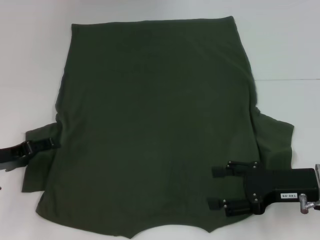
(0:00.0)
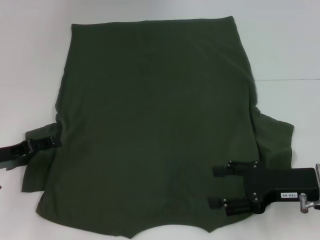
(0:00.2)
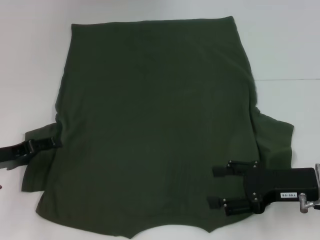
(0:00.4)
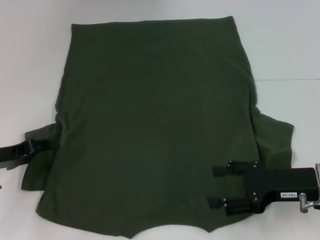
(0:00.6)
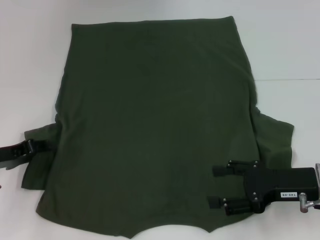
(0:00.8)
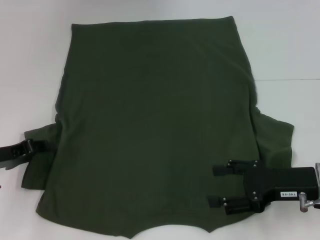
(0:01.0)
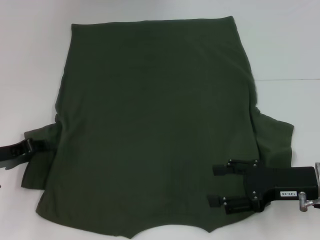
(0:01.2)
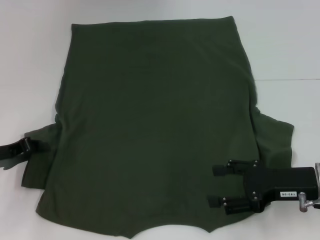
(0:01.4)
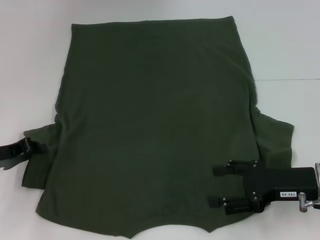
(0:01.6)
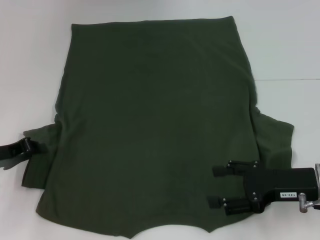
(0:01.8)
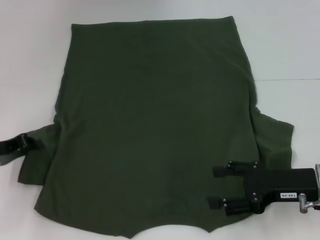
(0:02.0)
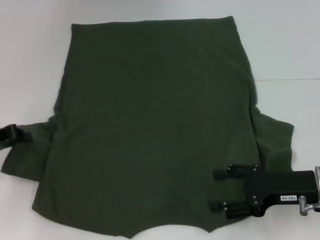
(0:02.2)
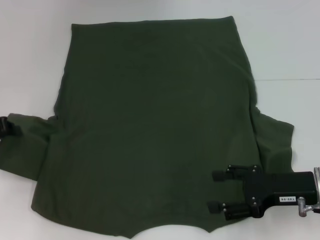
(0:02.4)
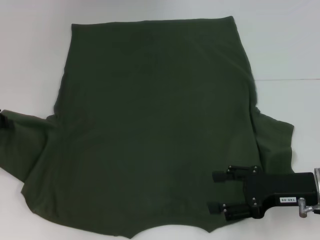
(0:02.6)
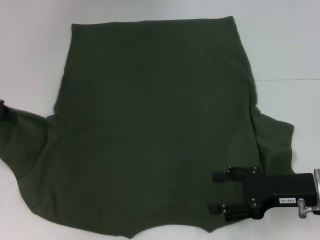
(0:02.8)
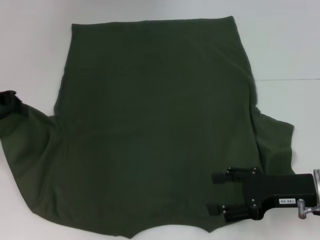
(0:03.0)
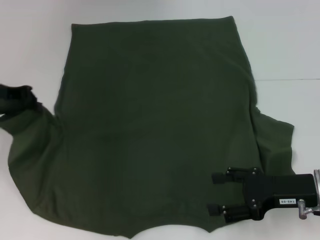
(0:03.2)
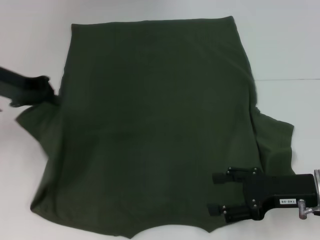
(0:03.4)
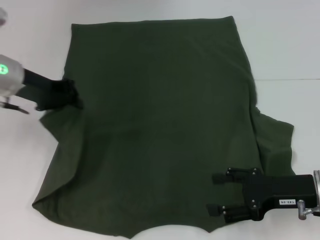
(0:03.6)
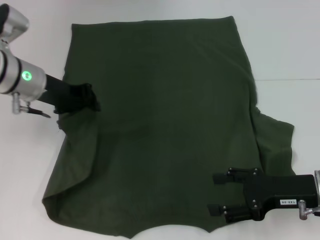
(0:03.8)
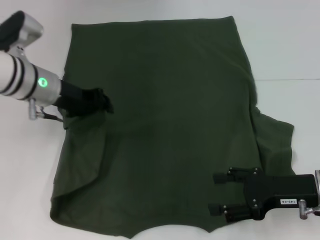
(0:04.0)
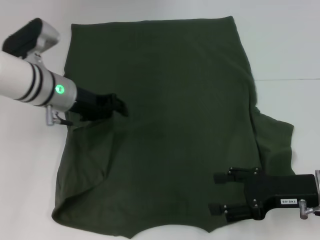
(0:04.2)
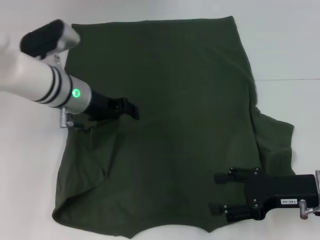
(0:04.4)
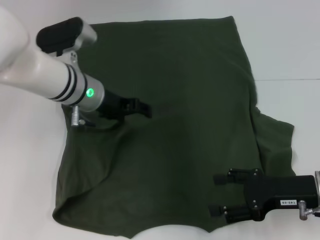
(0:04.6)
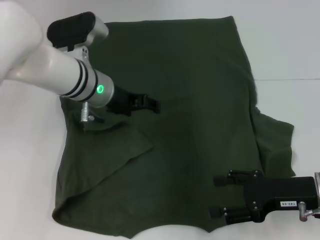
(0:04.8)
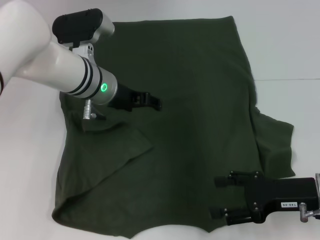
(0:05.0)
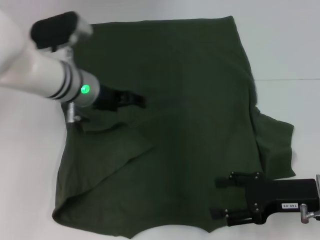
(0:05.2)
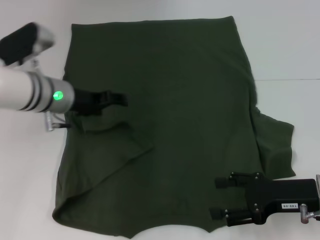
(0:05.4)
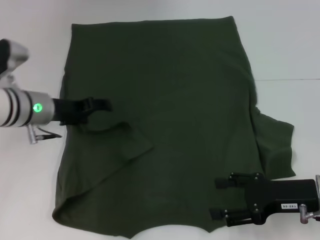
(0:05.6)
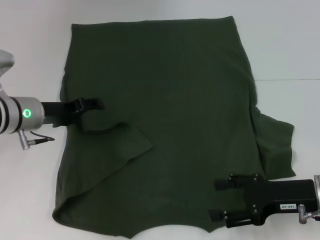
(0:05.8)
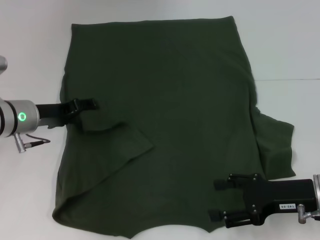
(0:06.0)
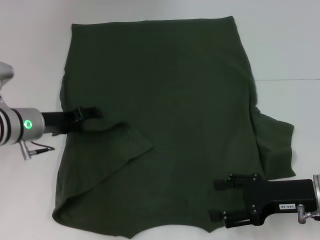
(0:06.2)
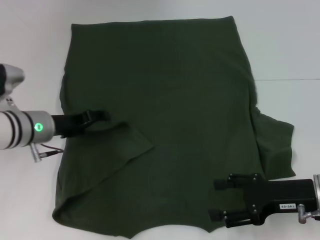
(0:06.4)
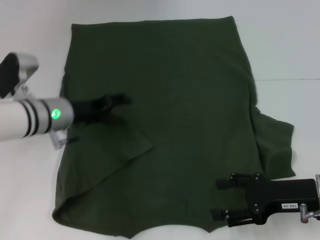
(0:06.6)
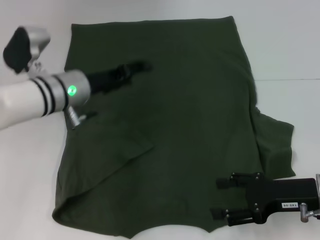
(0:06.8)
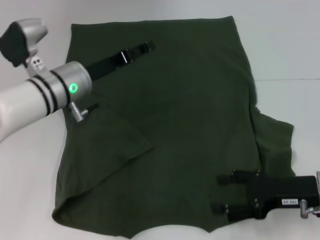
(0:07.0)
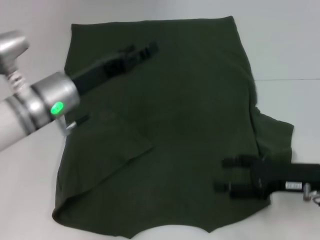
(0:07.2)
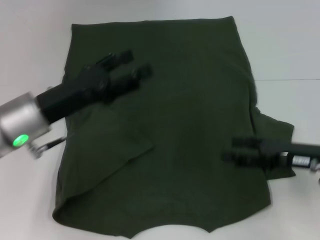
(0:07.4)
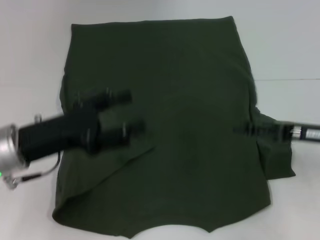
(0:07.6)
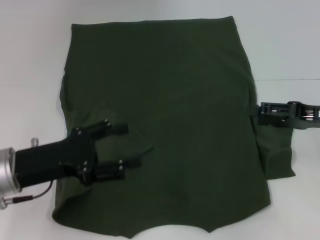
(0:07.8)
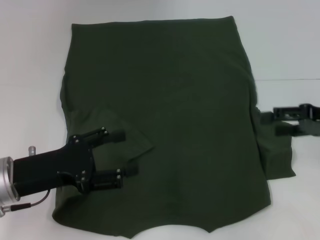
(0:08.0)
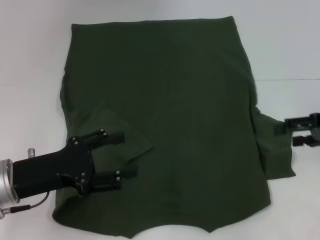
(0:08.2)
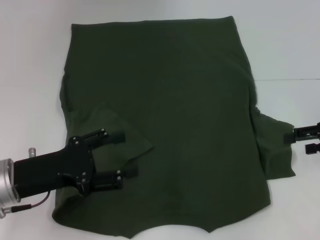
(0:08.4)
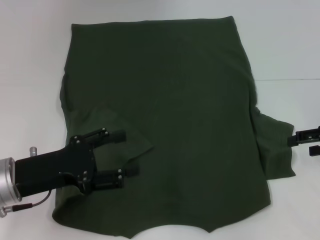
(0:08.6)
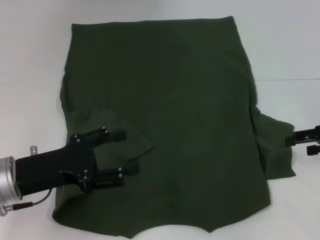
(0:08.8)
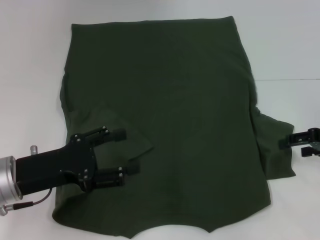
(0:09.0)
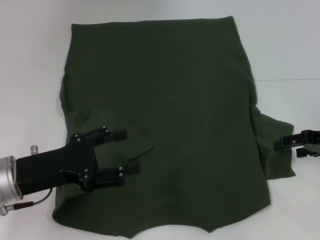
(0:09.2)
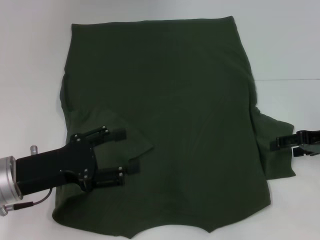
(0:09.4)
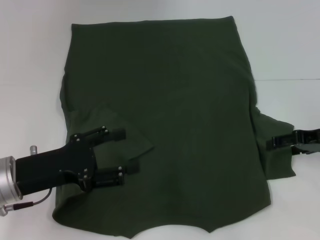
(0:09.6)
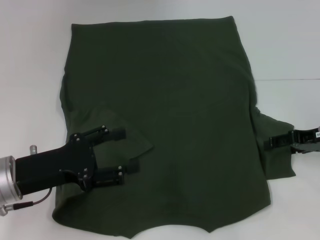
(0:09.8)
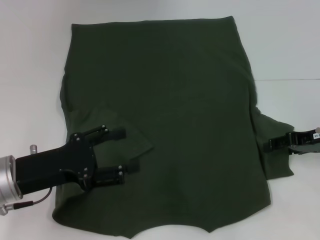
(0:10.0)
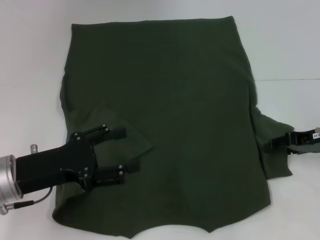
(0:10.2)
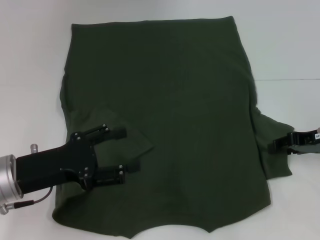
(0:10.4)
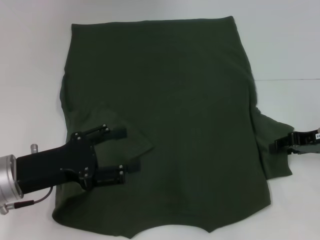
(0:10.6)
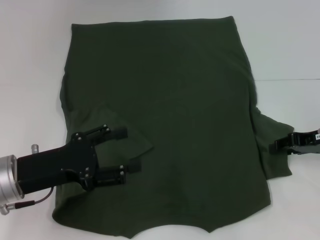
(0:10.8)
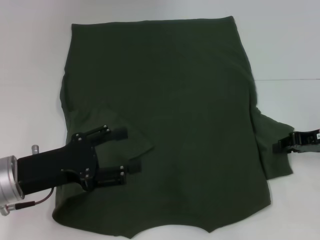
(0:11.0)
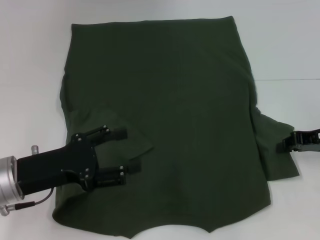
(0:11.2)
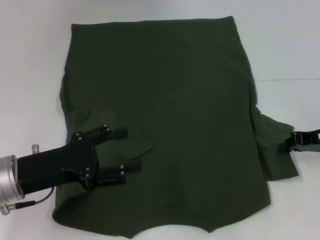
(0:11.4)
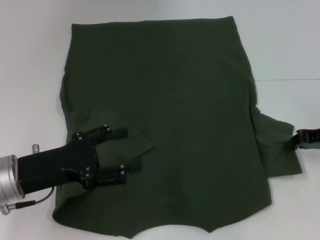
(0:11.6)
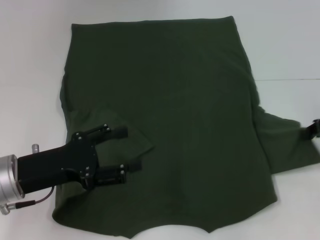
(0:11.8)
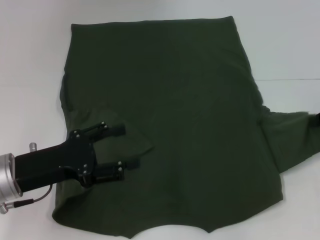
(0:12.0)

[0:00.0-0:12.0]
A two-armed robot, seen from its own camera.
Step, 0:00.0 to 0:07.2: Fold the bottom left sleeve with your left hand.
0:00.0 to 0:01.6: The left gripper closes up.
0:01.6 to 0:03.0: The left gripper heads upward and forward, covering about 15 cm.
0:03.0 to 0:04.4: The left gripper heads to the right, covering some 20 cm, and opens up.
0:04.4 to 0:06.0: The left gripper goes approximately 10 cm to the left, and opens its fingers.
0:06.0 to 0:07.6: The right gripper moves about 10 cm, while the left gripper heads backward, covering about 10 cm.
0:07.6 to 0:09.0: The right gripper moves to the right, roughly 5 cm.
0:09.0 to 0:10.4: The grippers make only small movements.
0:10.4 to 0:12.0: The right gripper changes place by about 5 cm, and closes its fingers.

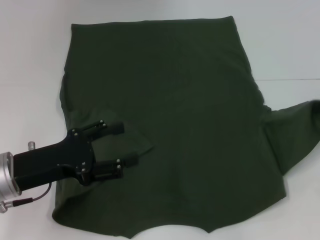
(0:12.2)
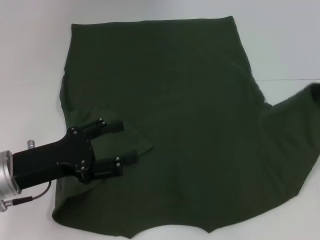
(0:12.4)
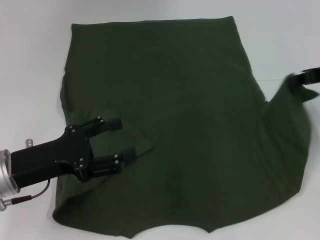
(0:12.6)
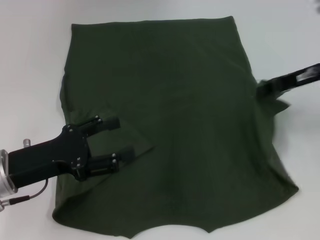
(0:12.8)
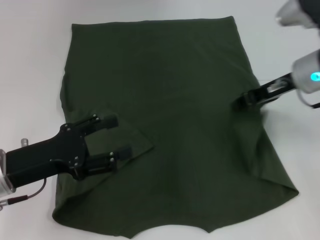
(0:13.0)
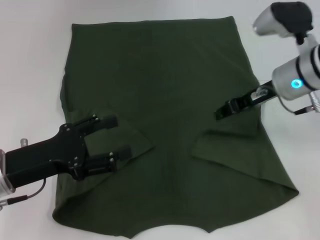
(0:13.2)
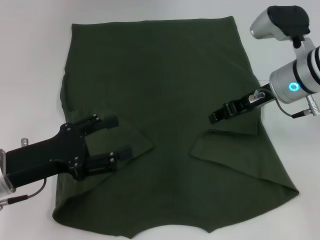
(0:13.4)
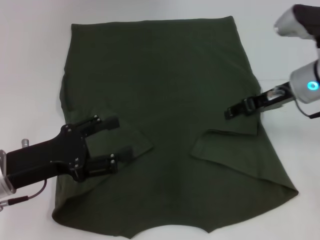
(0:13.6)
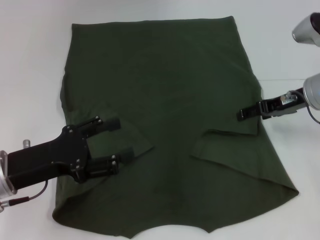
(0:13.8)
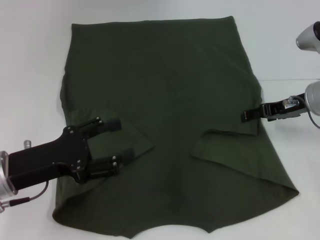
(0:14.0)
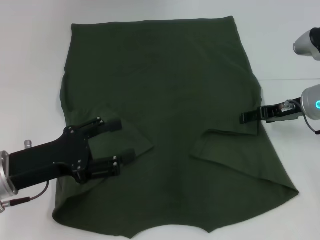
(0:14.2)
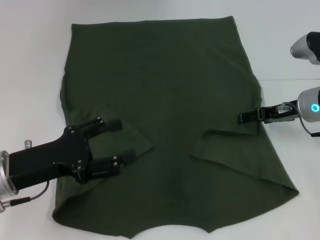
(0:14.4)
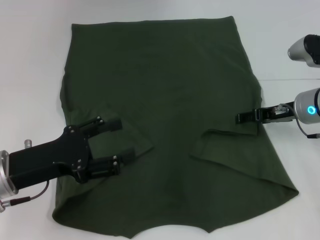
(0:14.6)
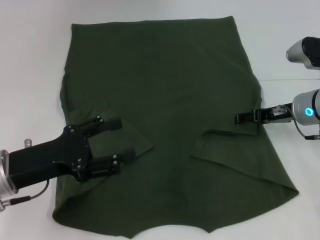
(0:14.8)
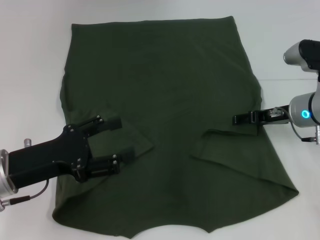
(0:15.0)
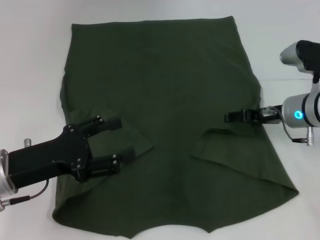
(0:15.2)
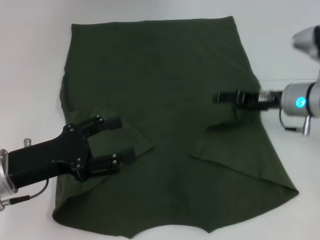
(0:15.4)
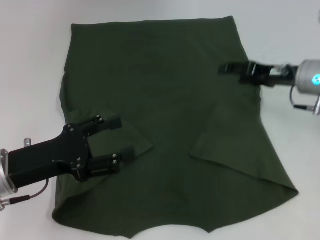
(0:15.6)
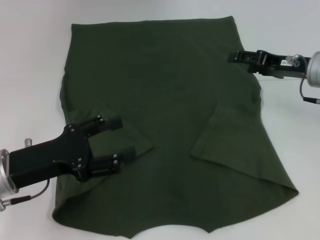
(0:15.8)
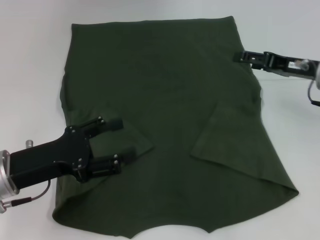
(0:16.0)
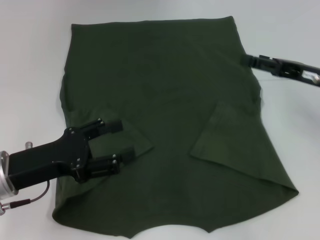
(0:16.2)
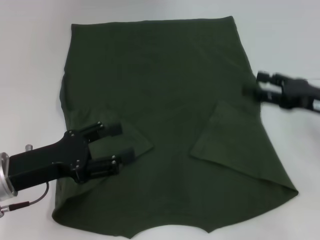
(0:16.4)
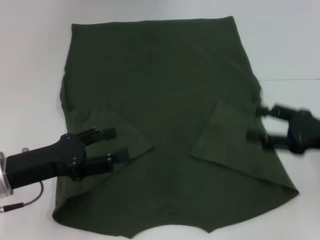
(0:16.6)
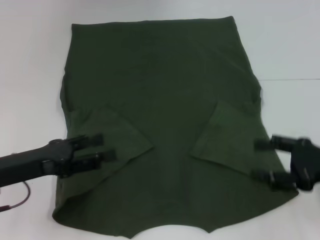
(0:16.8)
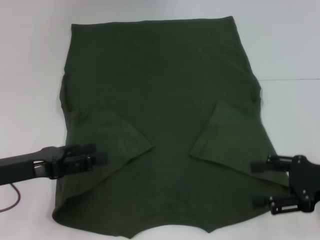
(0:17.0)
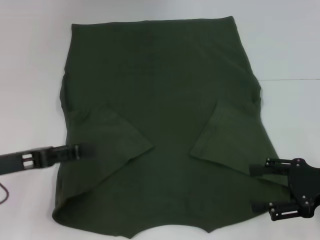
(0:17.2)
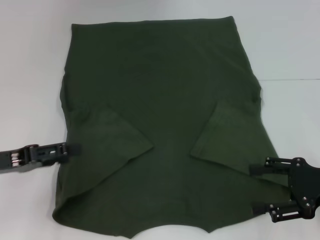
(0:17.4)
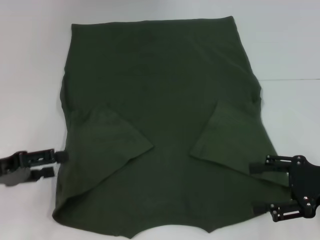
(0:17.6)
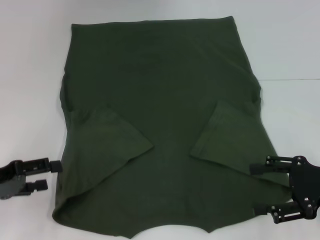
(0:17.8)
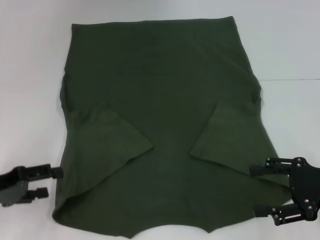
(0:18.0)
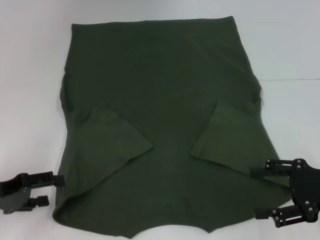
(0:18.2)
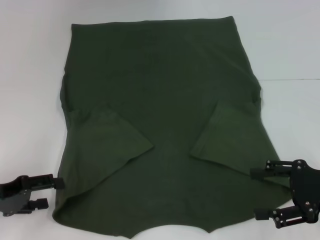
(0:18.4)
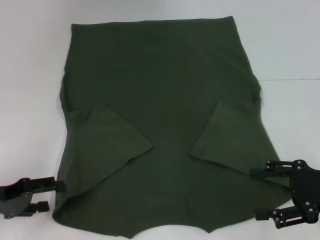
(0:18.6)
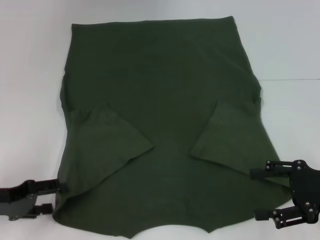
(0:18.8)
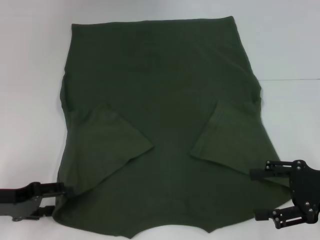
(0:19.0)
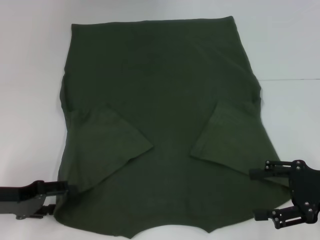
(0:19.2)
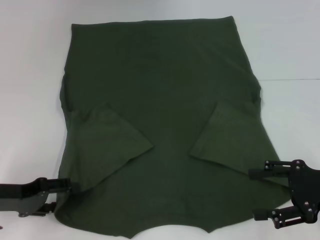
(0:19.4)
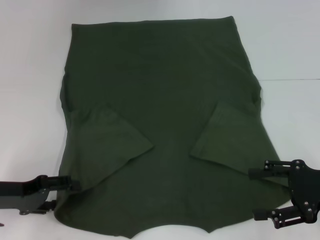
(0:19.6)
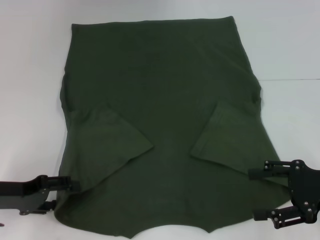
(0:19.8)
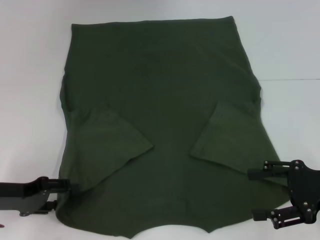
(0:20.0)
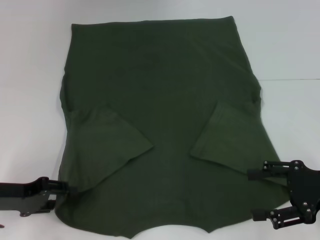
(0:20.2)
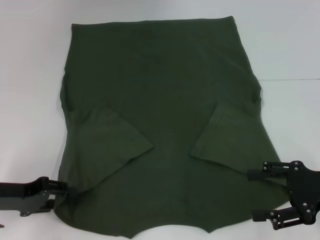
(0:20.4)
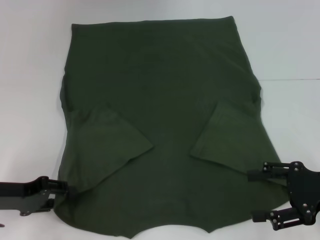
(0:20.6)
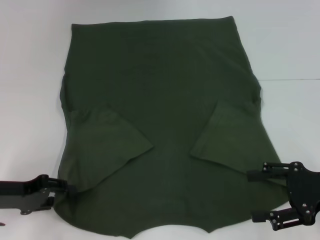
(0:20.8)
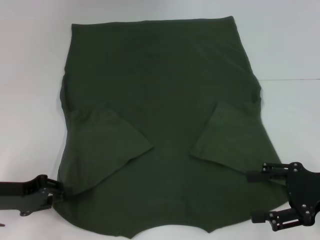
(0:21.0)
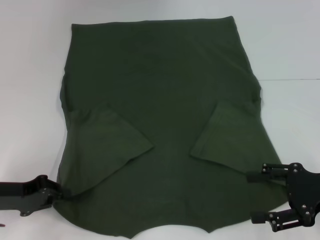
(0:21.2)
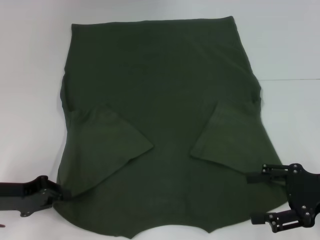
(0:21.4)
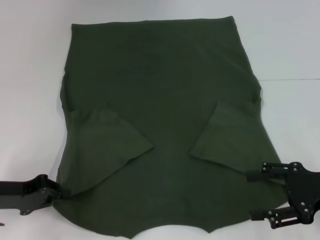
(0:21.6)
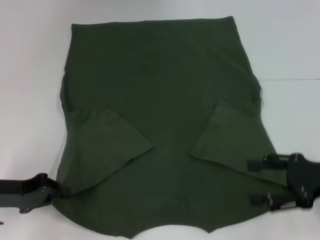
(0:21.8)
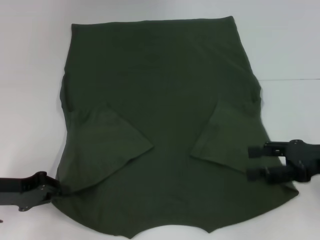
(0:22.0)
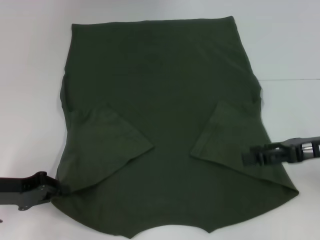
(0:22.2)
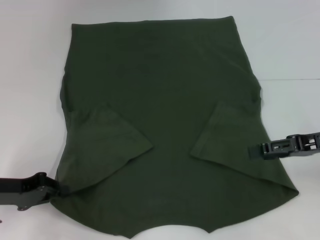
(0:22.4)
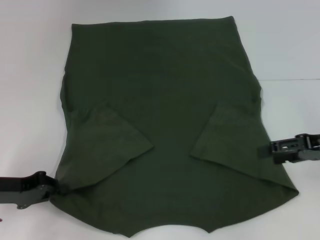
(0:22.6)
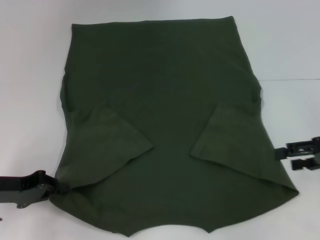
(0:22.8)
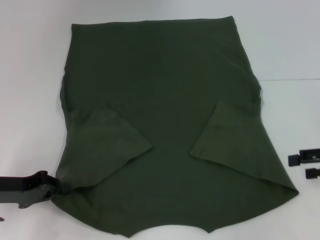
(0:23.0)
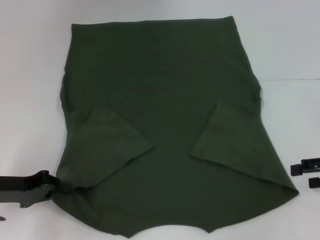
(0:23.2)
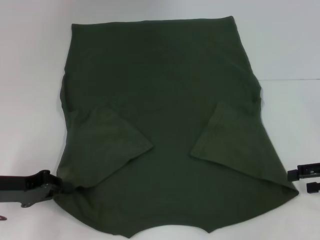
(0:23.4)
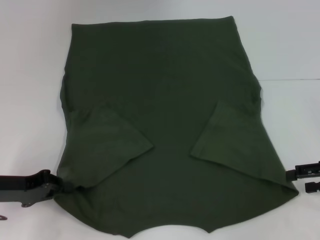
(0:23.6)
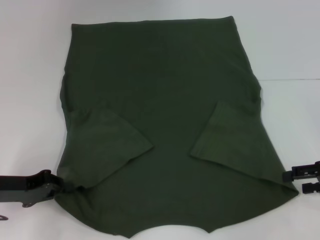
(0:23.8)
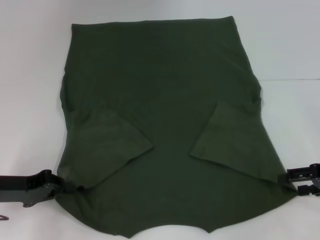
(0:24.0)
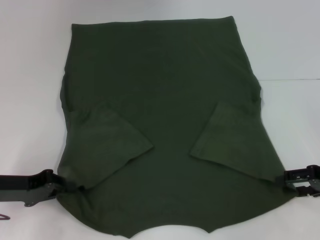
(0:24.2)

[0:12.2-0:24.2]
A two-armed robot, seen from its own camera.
Step, 0:12.2 to 0:15.8: Fold the bottom right sleeve with your right hand.
Step, 0:16.0 to 0:21.4: Grab the bottom left corner with your left hand.
0:12.2 to 0:13.8: The right gripper is displaced to the left by approximately 10 cm, and opens up.
0:13.8 to 0:15.2: The right gripper shifts approximately 5 cm downward.
0:15.2 to 0:16.6: The right gripper heads backward and to the right, covering about 15 cm.
0:16.6 to 0:18.2: The left gripper shifts roughly 10 cm to the left.
0:18.2 to 0:19.8: The grippers make only small movements.
0:19.8 to 0:21.2: The left gripper closes its fingers.
0:21.2 to 0:22.6: The right gripper travels forward by some 5 cm.
0:22.6 to 0:24.2: The right gripper is displaced downward by approximately 5 cm.
